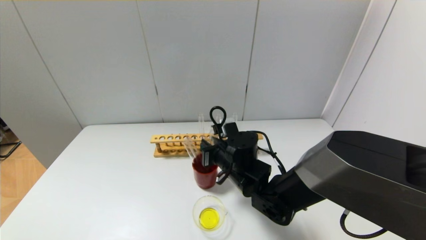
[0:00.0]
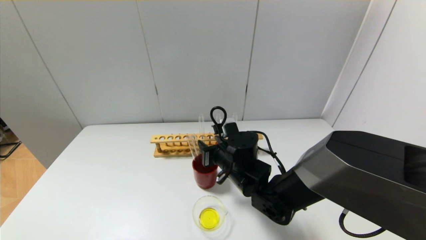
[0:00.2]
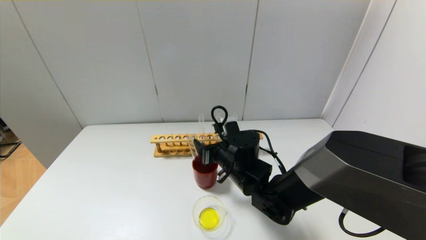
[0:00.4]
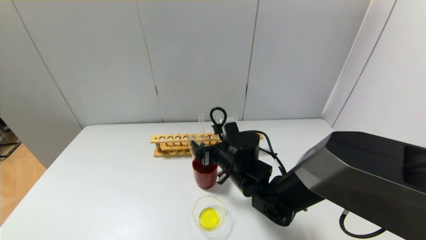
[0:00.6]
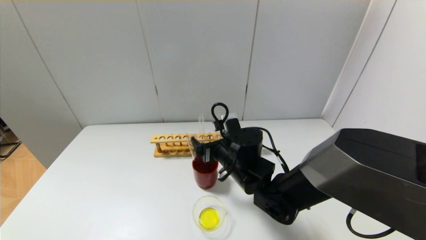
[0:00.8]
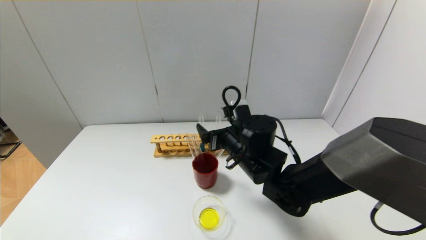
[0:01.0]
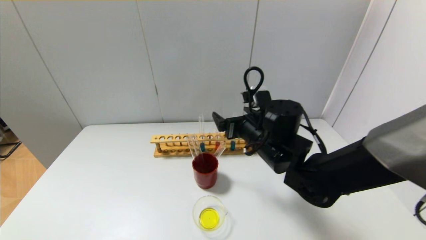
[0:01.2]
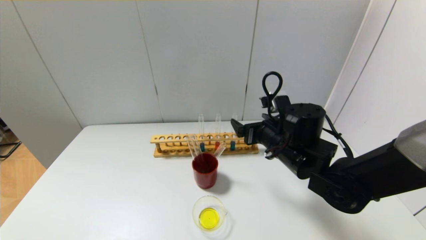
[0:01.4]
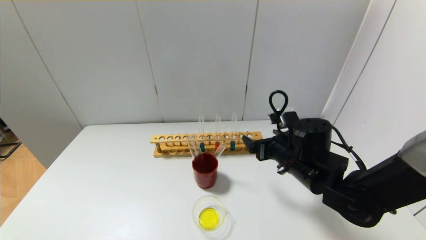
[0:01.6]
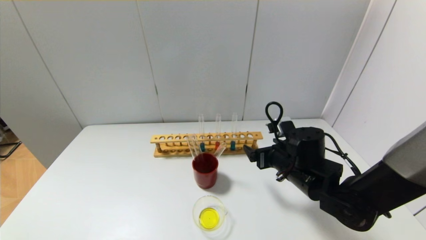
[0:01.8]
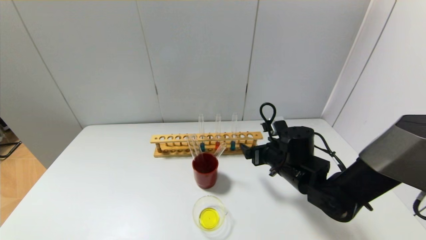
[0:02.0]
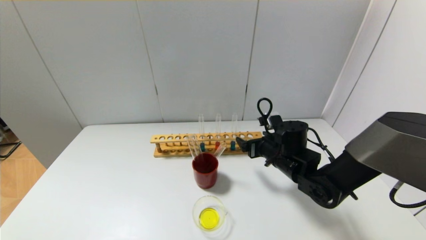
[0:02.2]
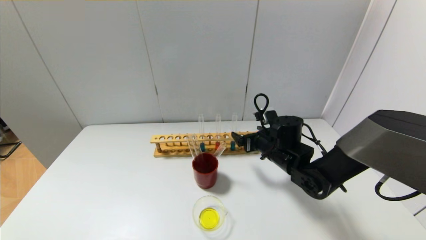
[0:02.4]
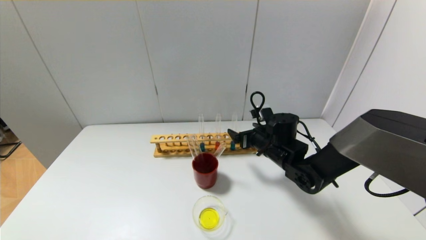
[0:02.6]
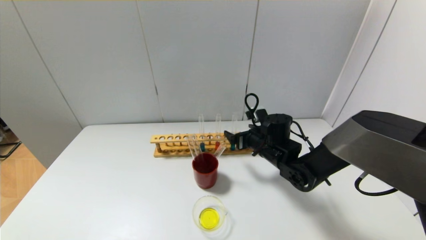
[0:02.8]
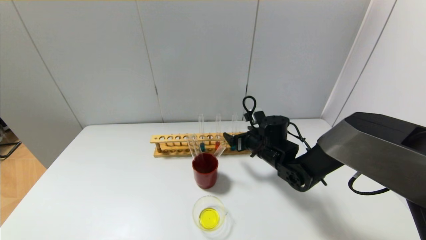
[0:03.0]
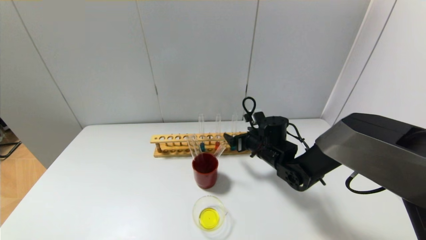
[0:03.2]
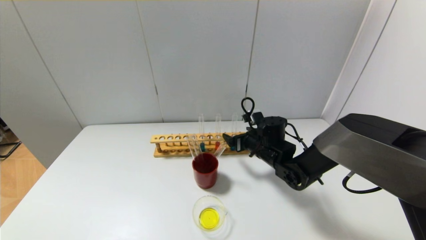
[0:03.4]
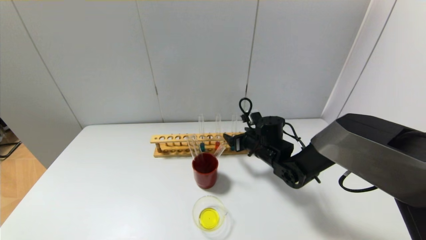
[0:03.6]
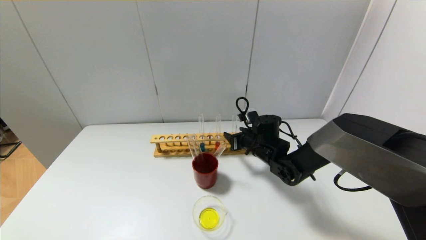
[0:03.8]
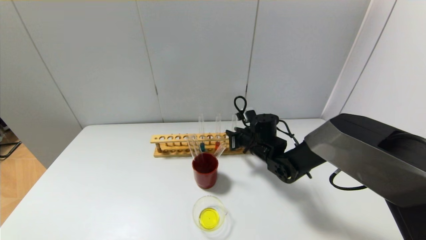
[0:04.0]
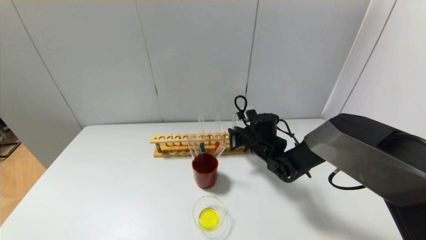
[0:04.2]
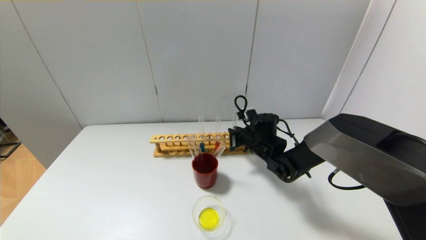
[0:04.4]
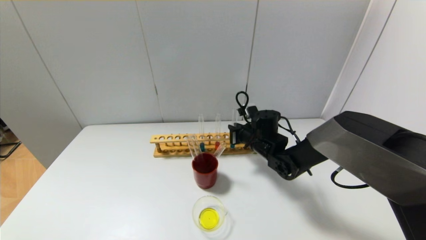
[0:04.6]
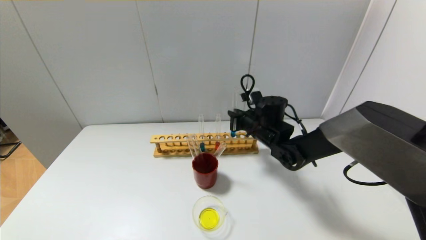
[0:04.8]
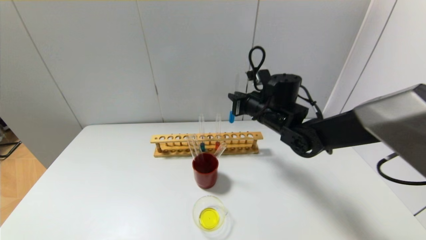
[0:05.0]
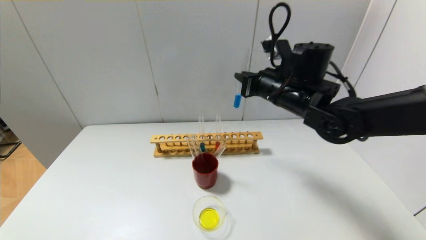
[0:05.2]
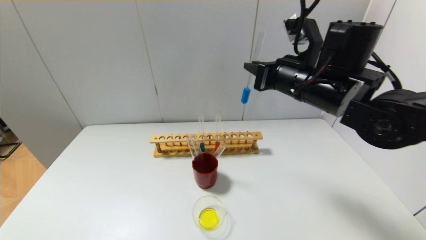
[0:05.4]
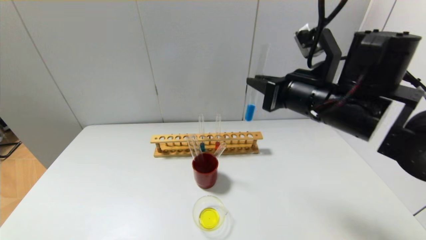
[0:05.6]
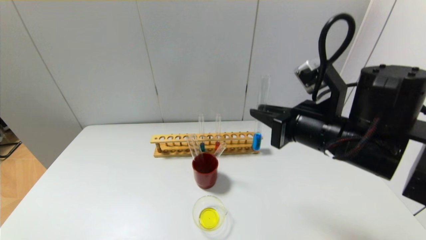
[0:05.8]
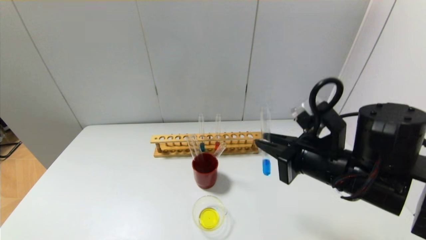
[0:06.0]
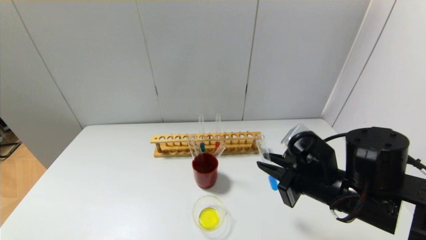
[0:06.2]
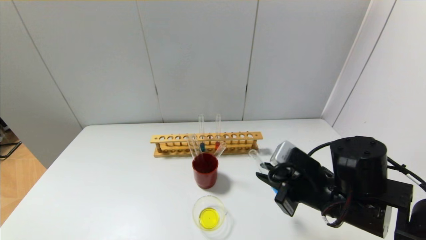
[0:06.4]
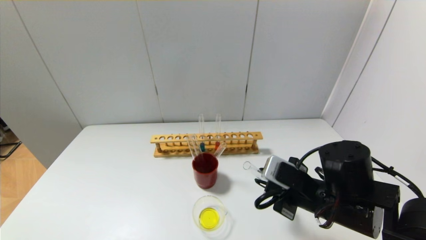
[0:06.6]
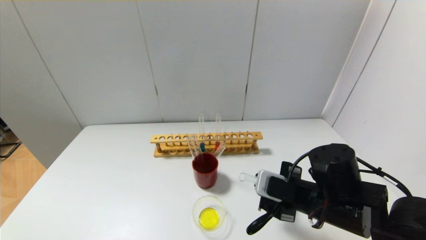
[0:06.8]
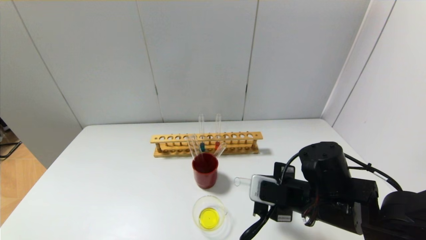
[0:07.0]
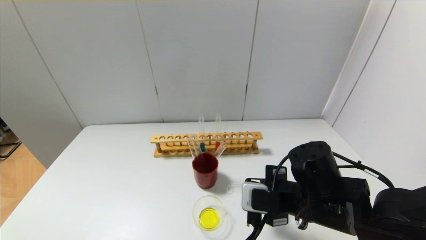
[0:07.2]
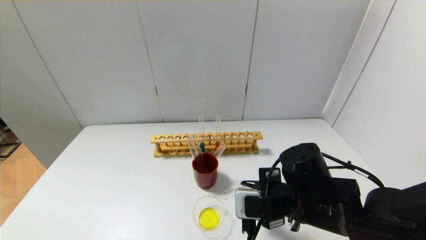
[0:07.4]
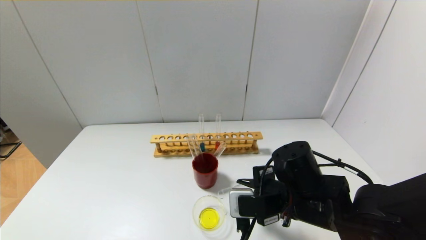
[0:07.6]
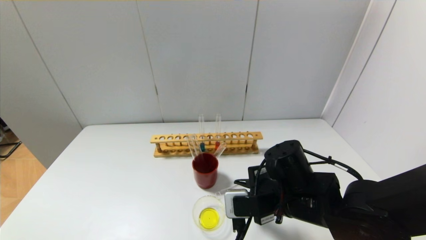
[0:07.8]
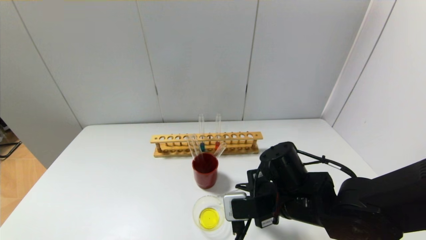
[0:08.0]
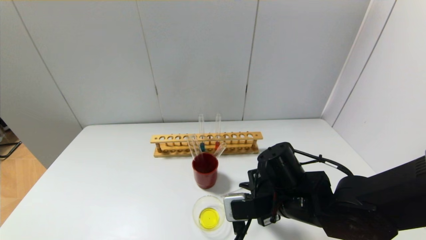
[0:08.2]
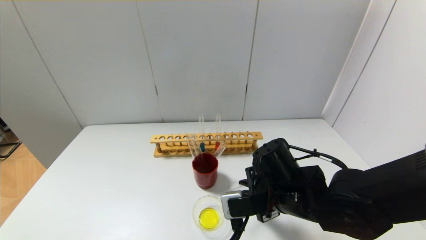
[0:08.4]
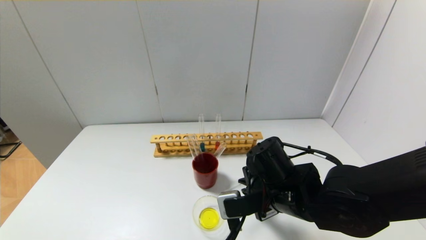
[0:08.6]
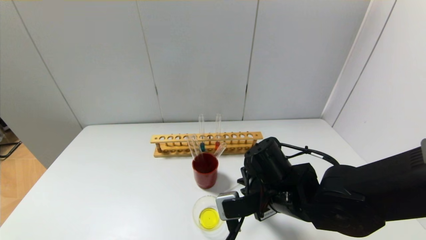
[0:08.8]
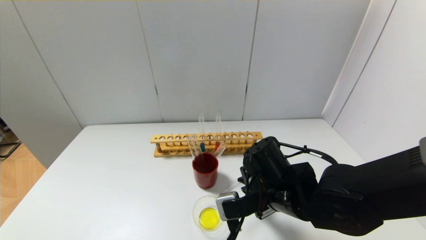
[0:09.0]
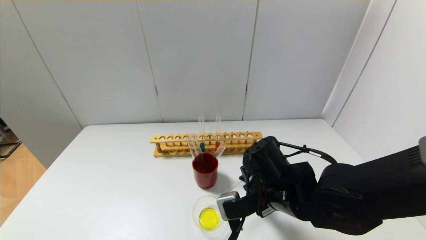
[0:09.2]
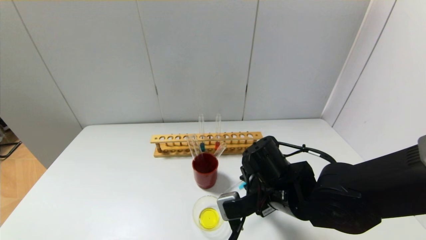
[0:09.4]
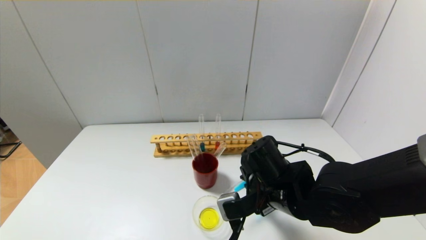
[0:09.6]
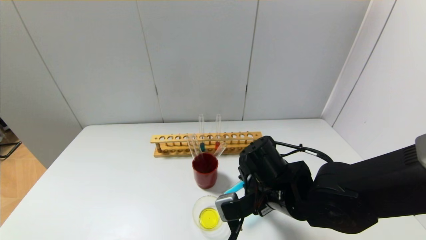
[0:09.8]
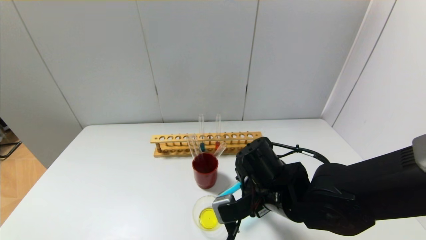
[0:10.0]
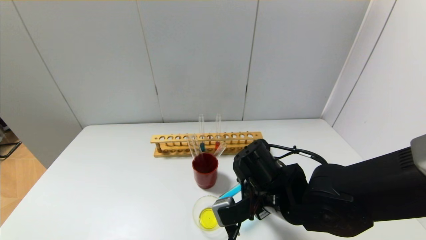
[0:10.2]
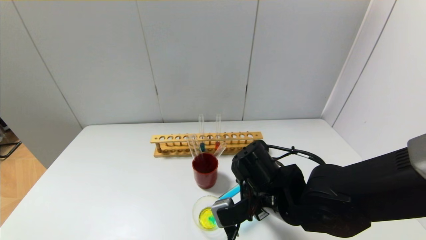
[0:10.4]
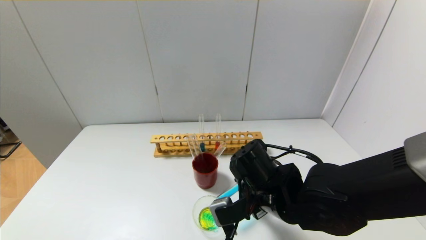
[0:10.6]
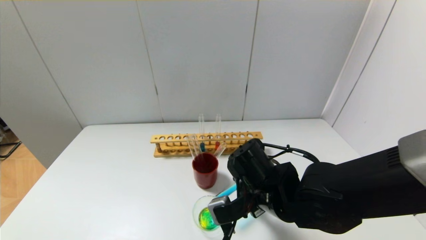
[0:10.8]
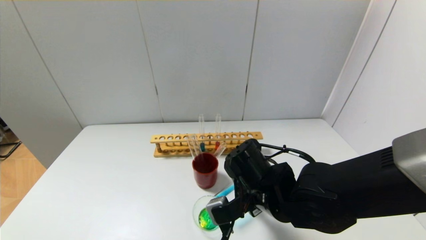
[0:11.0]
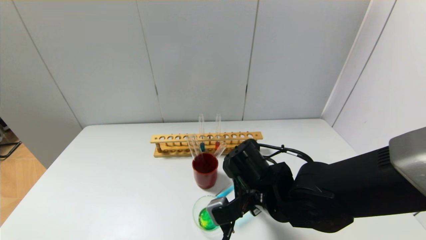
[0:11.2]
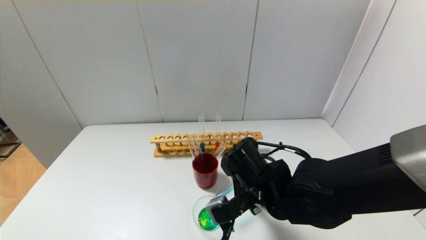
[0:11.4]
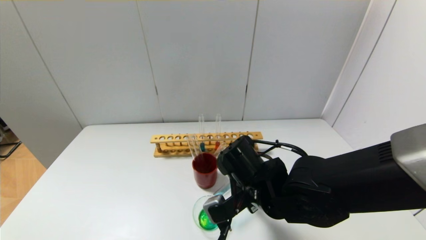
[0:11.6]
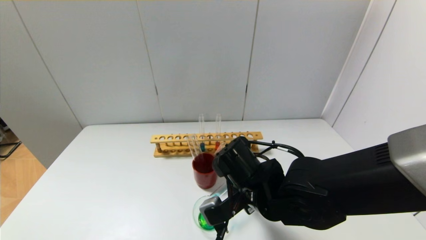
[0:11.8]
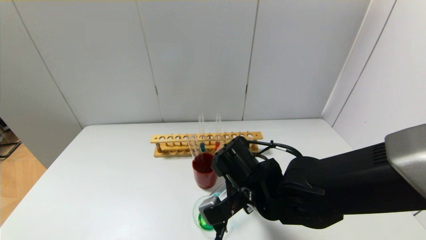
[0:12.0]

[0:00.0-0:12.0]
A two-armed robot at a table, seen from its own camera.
Step, 0:00.4 to 0:04.0: Grasp the blue reagent with the right gripper.
0:00.0 to 0:01.6: The right gripper travels to the right by about 10 cm, and opens its fingers.
0:01.6 to 0:03.0: The right gripper travels forward by roughly 10 cm.
0:03.0 to 0:04.4: The right gripper closes its fingers.
0:04.4 to 0:06.0: The right gripper moves backward and upward, approximately 25 cm.
0:06.0 to 0:07.6: The right gripper is displaced downward by roughly 10 cm.
0:09.0 to 0:12.0: The grippers move only a little.

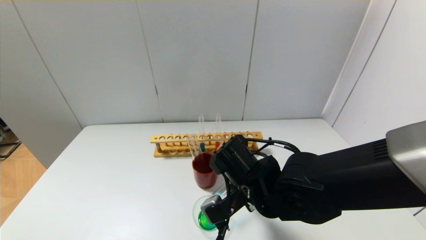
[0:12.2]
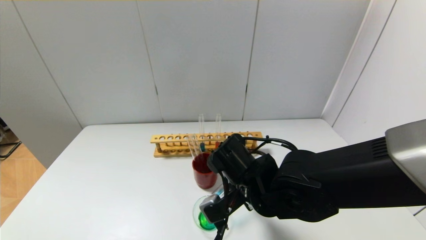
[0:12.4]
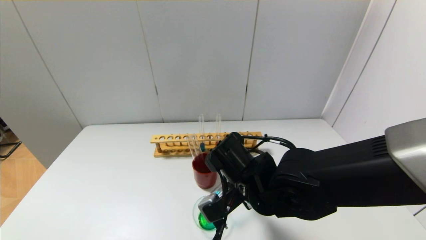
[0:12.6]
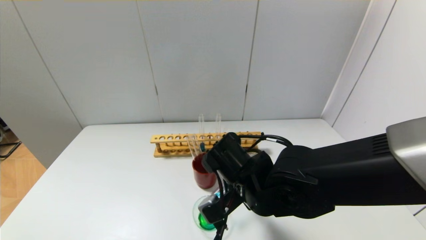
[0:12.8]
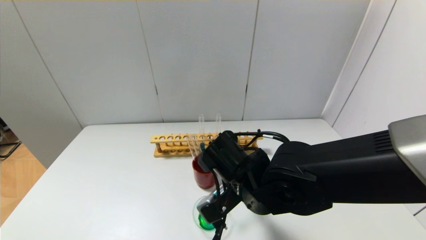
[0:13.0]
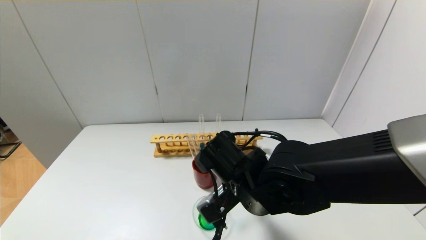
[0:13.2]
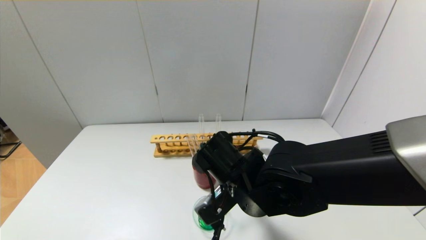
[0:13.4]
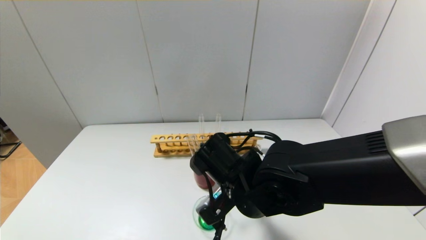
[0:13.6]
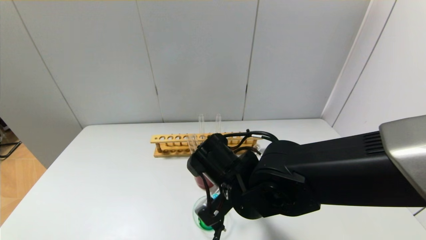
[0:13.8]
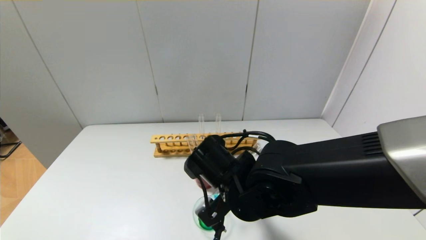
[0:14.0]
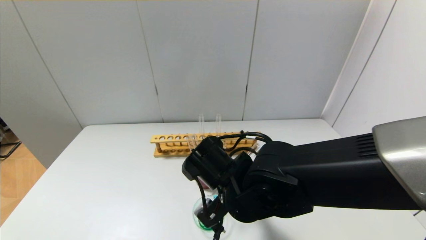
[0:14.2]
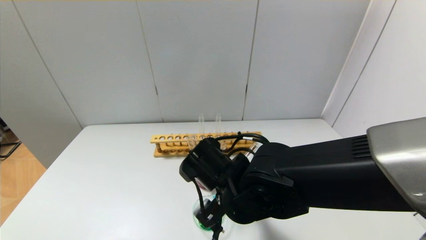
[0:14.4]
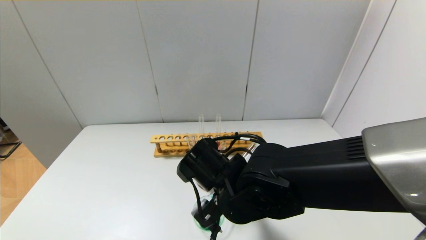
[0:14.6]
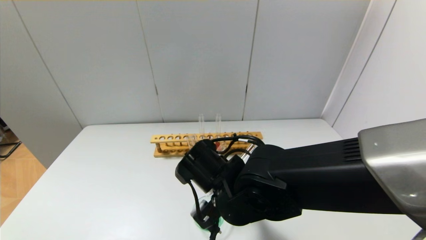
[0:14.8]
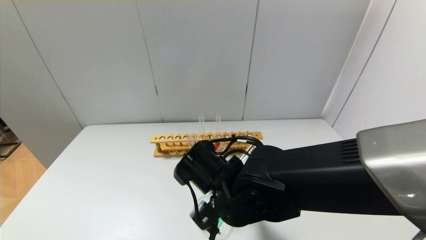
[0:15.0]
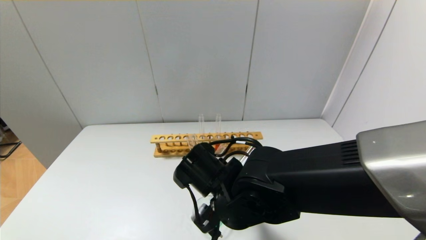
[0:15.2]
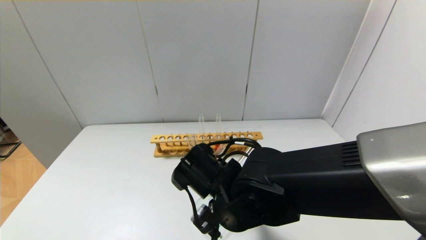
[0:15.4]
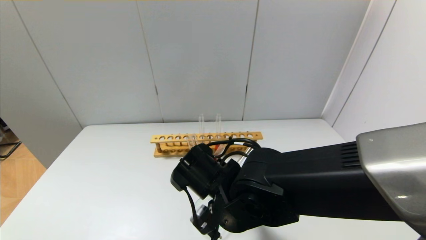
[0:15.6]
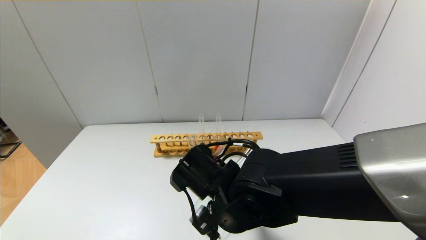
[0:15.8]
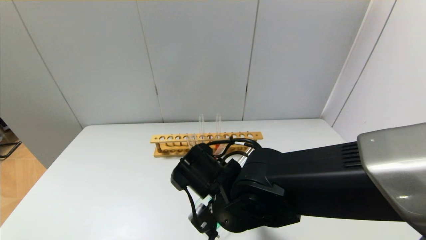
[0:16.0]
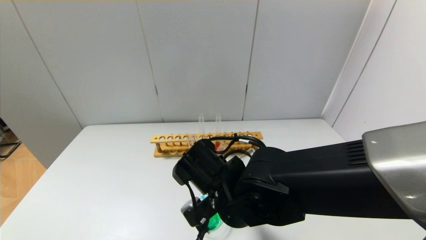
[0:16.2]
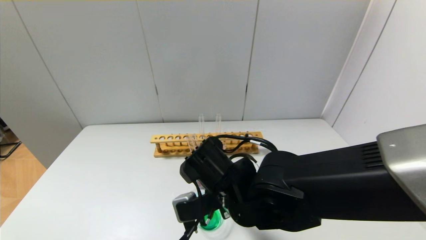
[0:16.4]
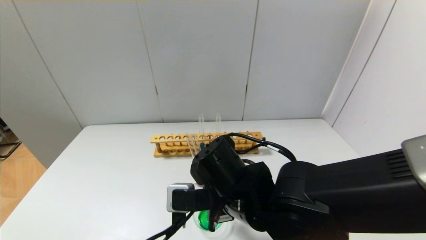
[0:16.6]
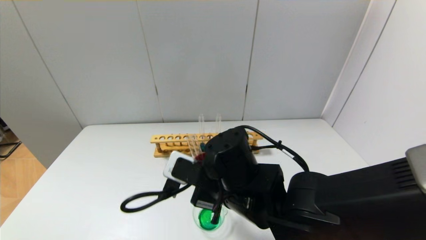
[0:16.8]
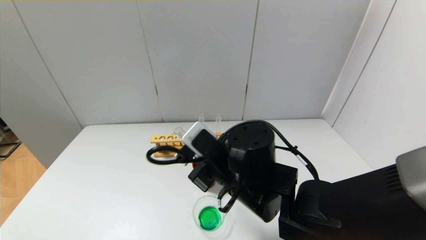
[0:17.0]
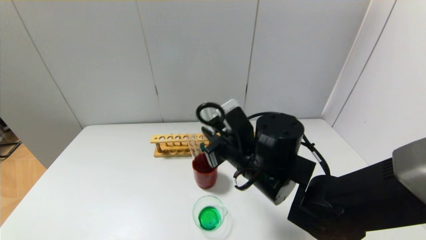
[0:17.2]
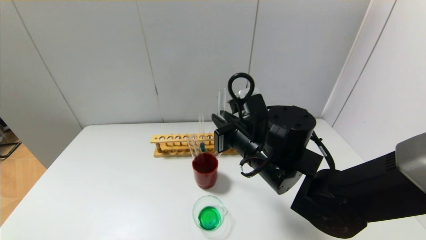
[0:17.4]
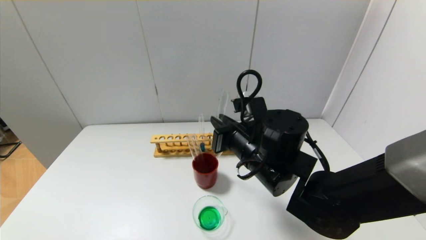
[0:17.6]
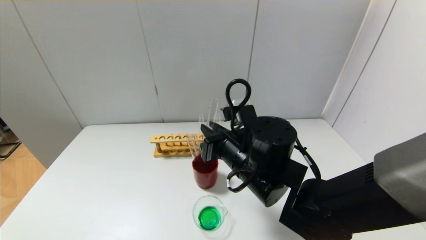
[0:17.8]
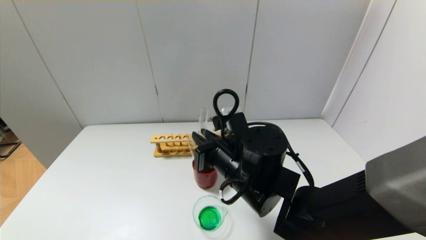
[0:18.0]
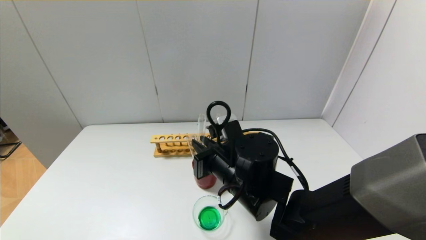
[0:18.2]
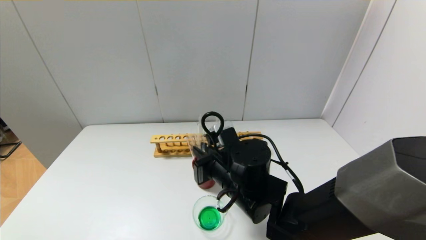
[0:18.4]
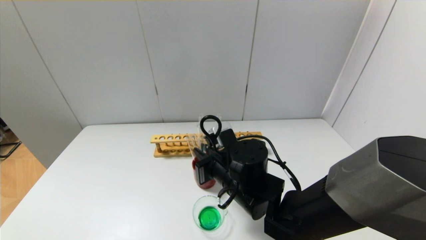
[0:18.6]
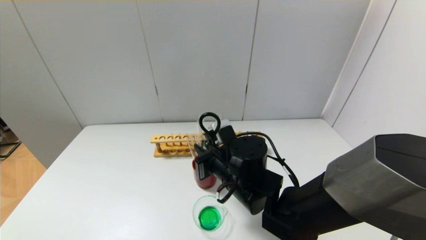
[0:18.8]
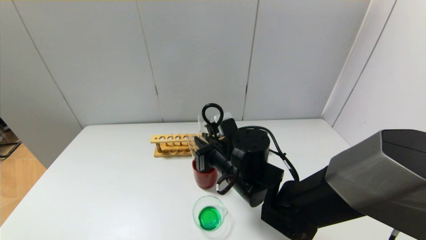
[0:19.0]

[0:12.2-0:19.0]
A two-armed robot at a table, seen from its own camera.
Step, 0:12.2 to 0:16.0: Pour the blue reagent into the graduated cylinder with the right gripper.
0:12.2 to 0:16.2: The grippers make only small movements.
0:16.2 to 0:17.6: The right gripper shifts approximately 5 cm to the right.
0:17.6 to 0:19.0: The right gripper shifts by about 5 cm.
